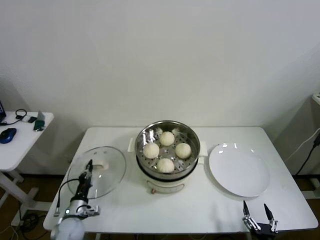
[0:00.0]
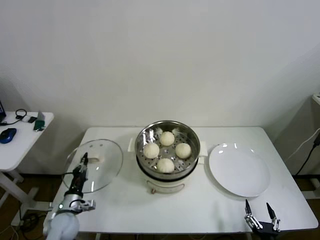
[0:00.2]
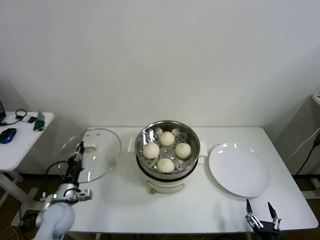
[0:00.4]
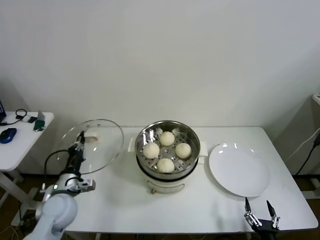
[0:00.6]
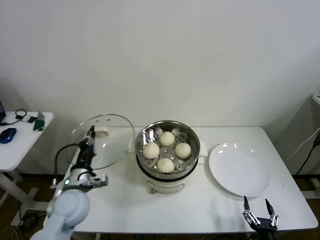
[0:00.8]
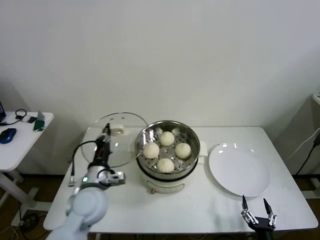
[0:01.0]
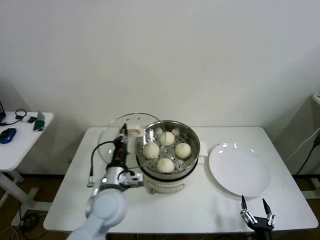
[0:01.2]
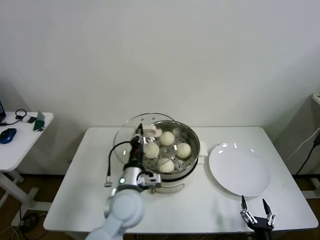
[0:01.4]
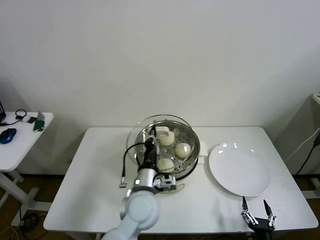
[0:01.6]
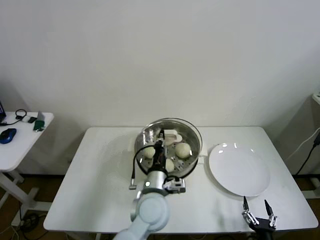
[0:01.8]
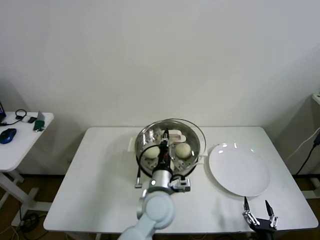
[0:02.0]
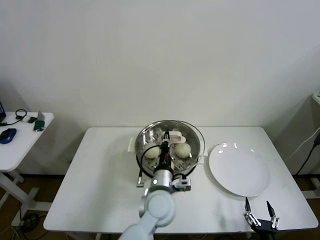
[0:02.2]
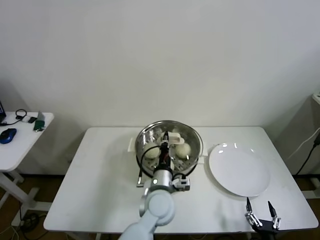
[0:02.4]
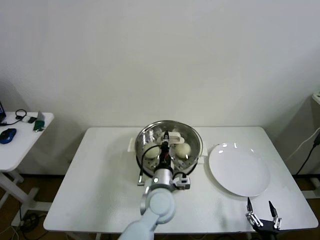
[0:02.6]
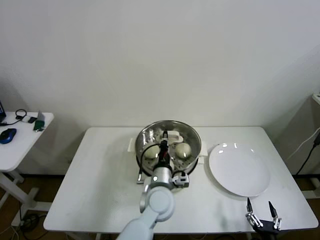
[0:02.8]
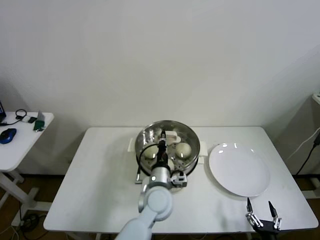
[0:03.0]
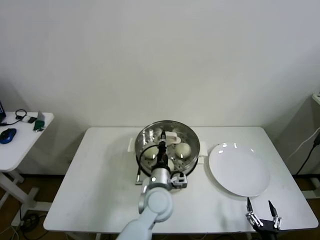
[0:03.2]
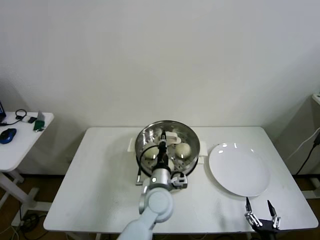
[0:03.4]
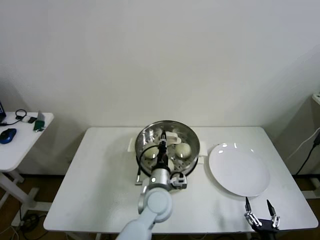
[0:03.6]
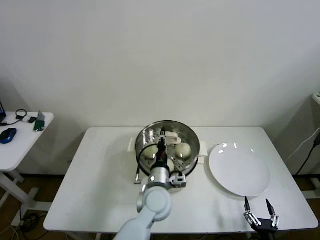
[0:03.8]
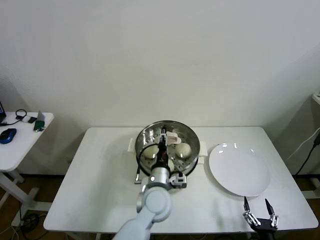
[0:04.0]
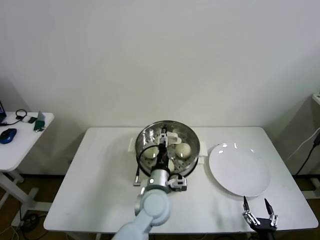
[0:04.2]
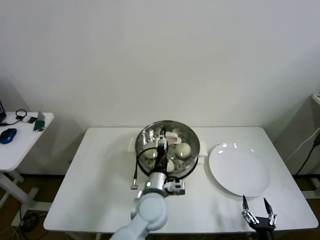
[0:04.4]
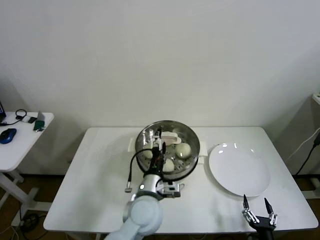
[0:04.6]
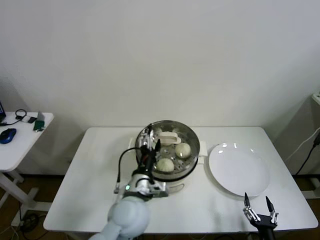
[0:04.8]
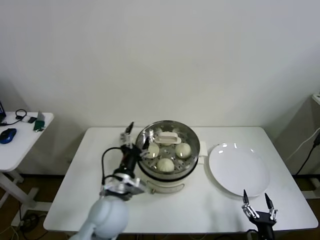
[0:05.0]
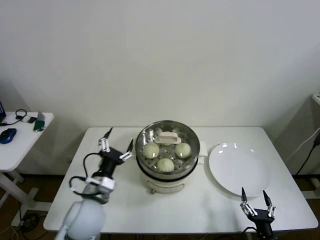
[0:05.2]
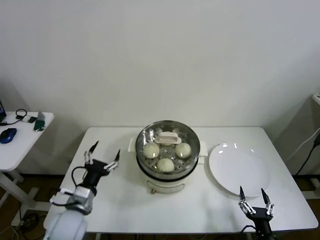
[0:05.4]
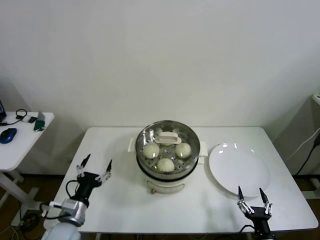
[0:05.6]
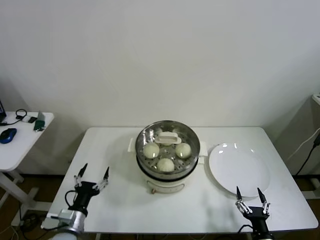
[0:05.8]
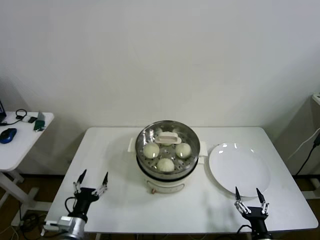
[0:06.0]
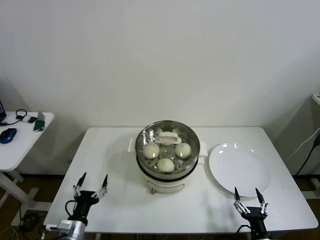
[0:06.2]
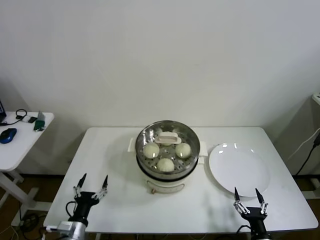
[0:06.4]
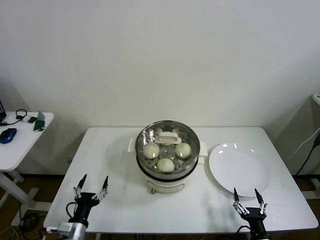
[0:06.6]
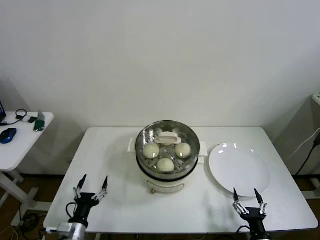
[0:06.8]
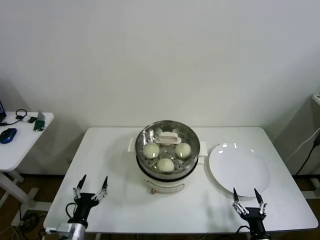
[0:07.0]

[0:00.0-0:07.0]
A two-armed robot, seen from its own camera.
Step, 0:00.0 to 0:03.6: Place the pot lid on the steamer with left gripper.
0:00.0 to 0:01.4: The left gripper is displaced to the right and upward by approximately 30 cm.
0:01.4 to 0:02.8: The left gripper moves to the right, some 10 cm.
0:02.8 to 0:04.2: The left gripper opens up.
0:04.2 to 0:05.6: The left gripper is displaced to the left by about 25 cm.
0:05.6 to 0:07.0: The left gripper moves downward and backward, approximately 10 cm.

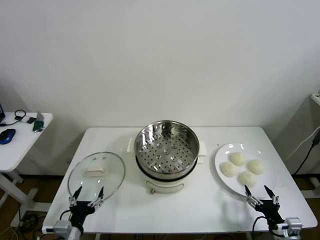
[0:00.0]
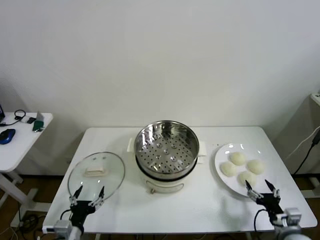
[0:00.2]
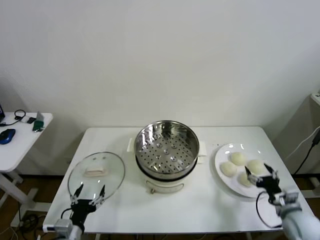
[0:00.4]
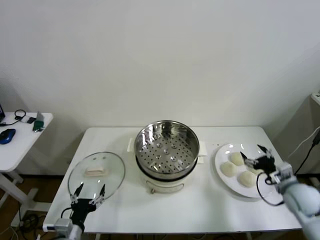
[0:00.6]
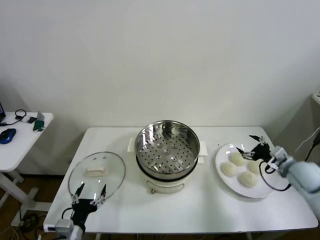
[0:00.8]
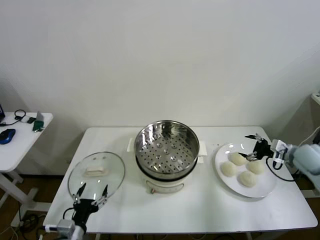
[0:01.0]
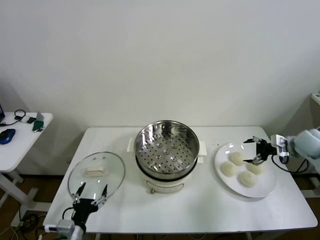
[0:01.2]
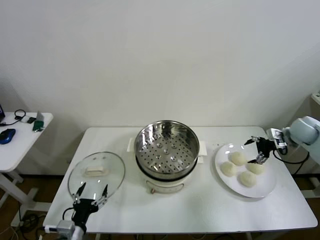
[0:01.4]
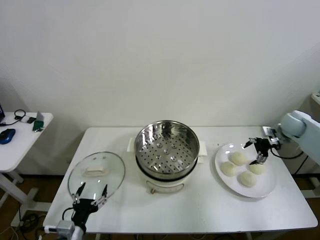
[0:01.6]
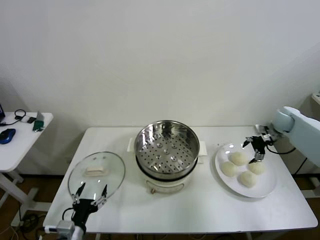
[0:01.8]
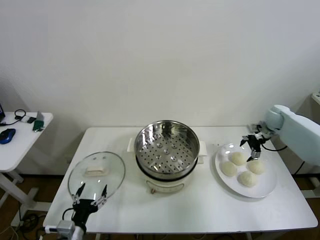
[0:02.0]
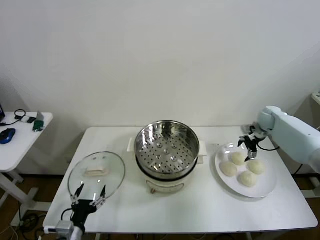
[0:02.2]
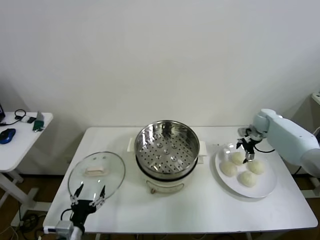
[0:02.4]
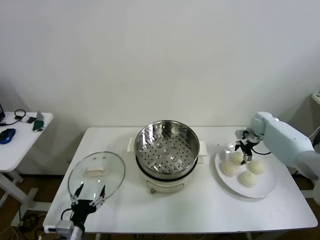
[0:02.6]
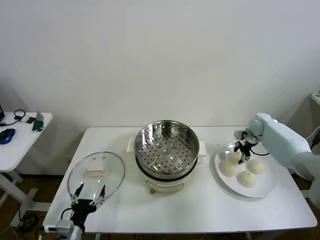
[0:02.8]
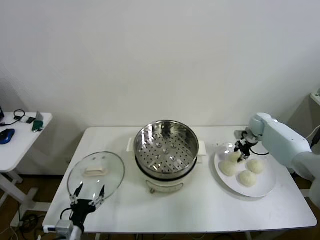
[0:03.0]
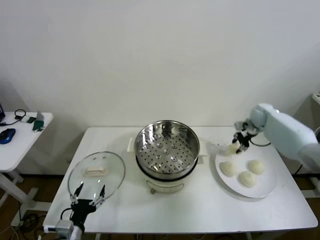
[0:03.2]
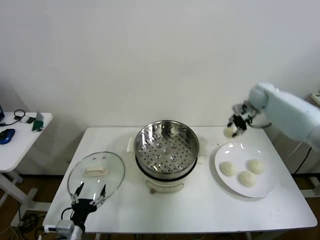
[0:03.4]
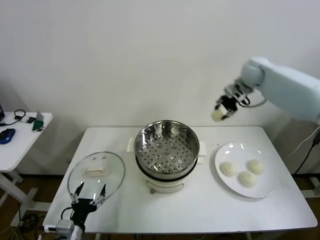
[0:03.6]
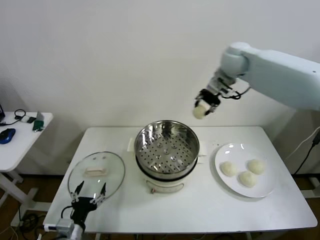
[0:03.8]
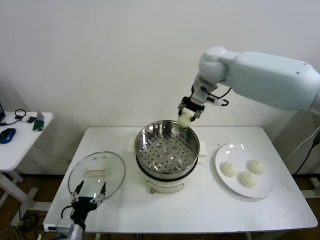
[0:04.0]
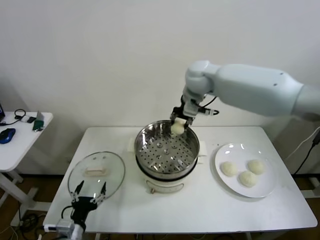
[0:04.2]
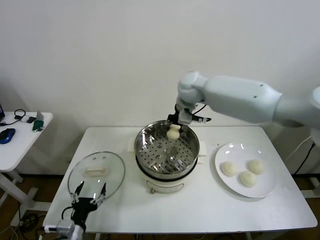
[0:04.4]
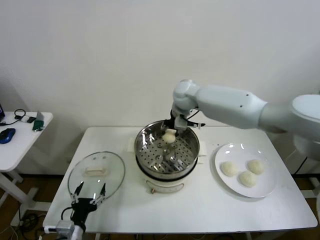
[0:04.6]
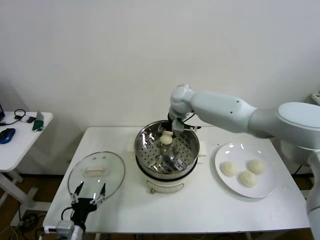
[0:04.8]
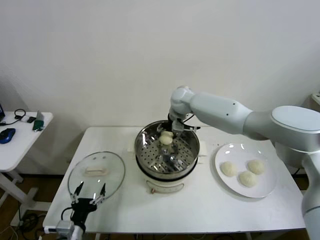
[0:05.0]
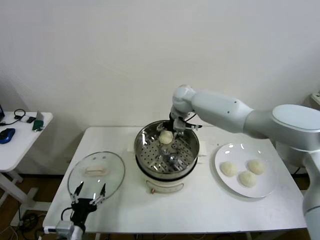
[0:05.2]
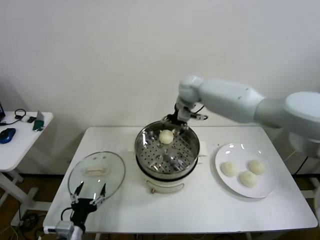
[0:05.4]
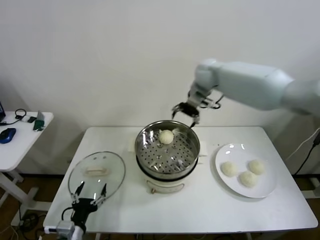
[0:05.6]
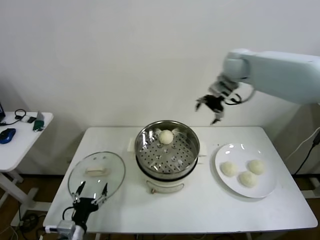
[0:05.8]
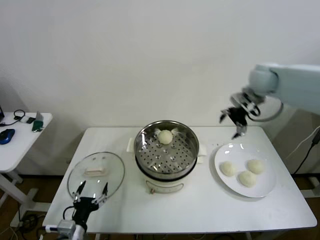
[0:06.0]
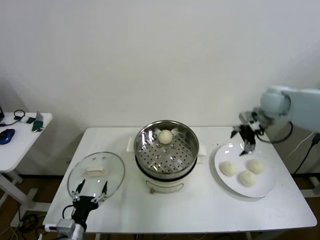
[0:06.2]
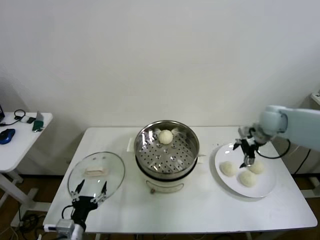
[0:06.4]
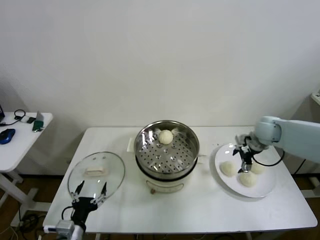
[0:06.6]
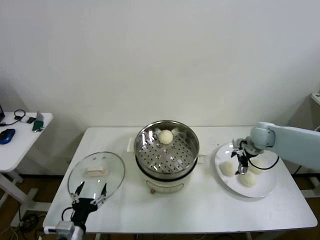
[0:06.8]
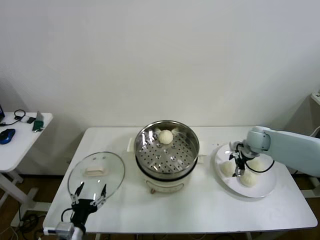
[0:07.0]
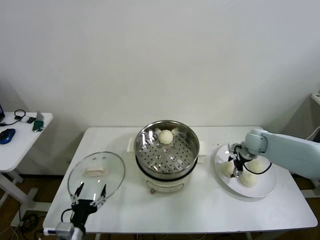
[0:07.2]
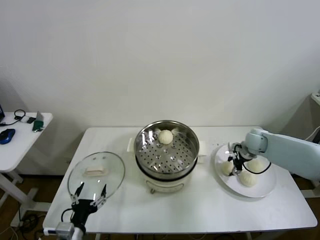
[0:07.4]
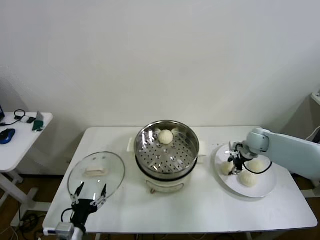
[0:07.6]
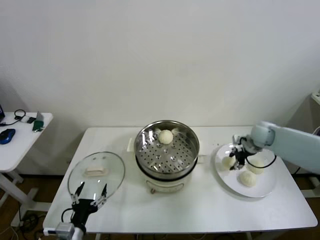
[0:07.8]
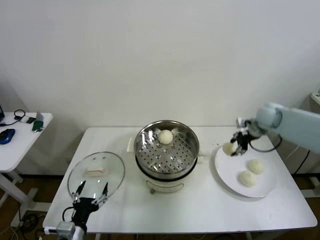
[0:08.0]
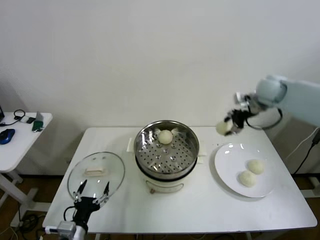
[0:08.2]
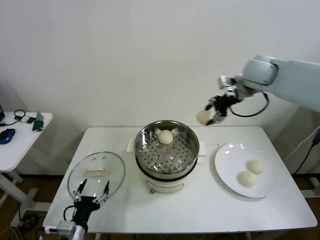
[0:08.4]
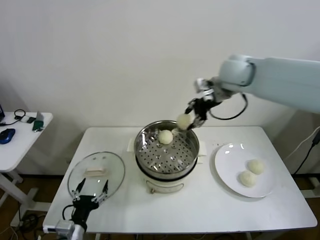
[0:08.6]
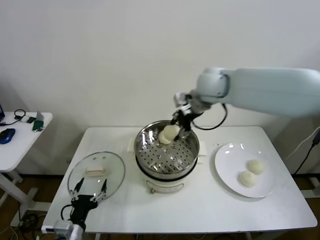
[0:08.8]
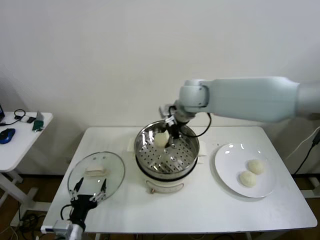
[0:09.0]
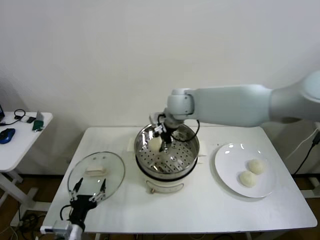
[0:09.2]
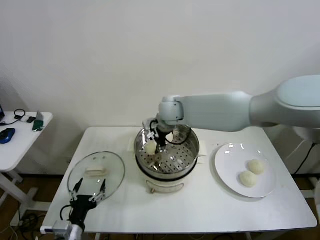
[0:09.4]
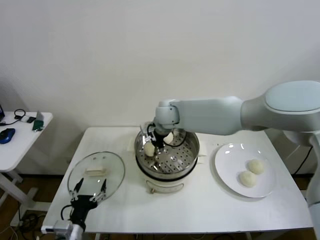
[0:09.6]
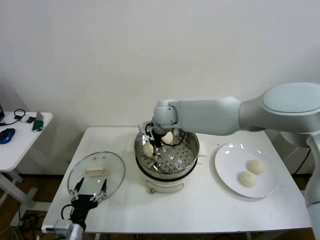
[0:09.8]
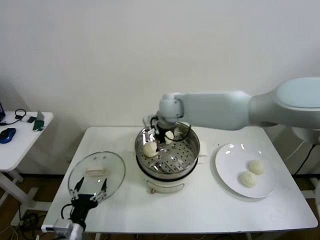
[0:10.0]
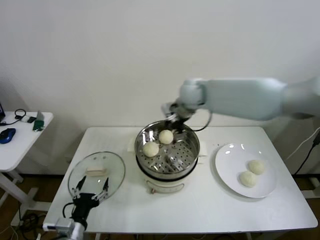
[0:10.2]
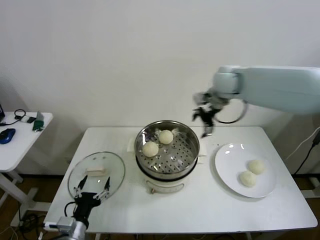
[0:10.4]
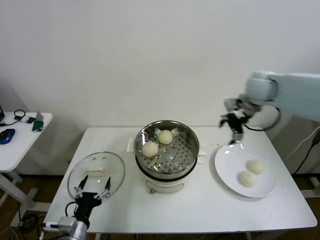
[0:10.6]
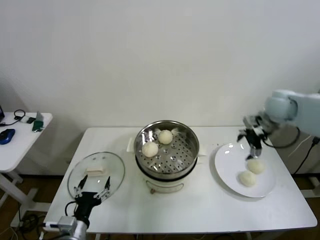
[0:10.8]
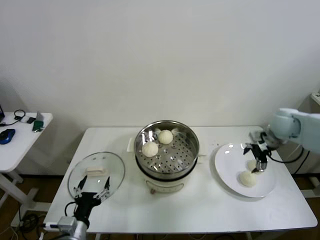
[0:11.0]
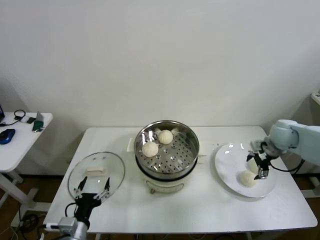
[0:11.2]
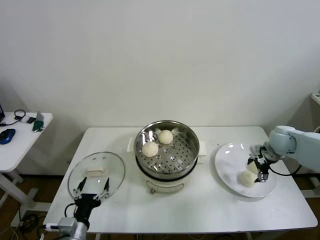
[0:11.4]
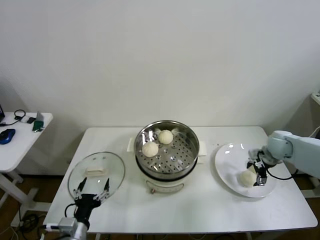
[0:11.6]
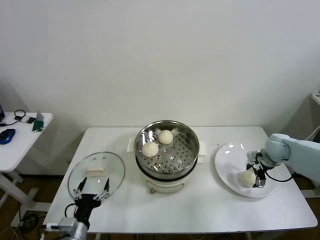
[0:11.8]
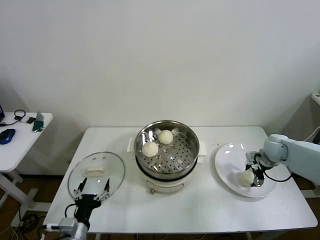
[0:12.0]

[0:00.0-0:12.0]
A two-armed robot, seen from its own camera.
Step, 0:00.0 to 0:02.8: Grasp the baozi in the plate with right gripper.
Step, 0:03.2 to 0:05.0: Place the baozi on the steamer with right gripper.
Step, 0:05.2 to 0:07.4: Grasp the baozi in the plate with right gripper.
Step, 0:07.6 to 0:09.8: Place the baozi on the steamer with right gripper.
0:01.6 to 0:03.0: The right gripper travels to the left and forward by approximately 10 cm, and closes.
0:03.0 to 0:04.4: The right gripper goes roughly 35 cm to the left and upward.
0:04.4 to 0:06.0: The right gripper goes some 25 cm to the right, and opens.
0:06.0 to 0:07.6: The right gripper shifts approximately 20 cm downward, and closes up.
0:07.6 to 0:09.0: The right gripper heads to the left and upward, covering some 35 cm.
0:09.0 to 0:10.4: The right gripper moves to the right, about 15 cm, and opens its fingers.
0:10.4 to 0:12.0: The right gripper goes approximately 30 cm downward and to the right.

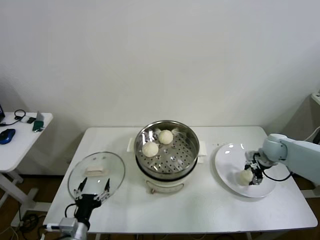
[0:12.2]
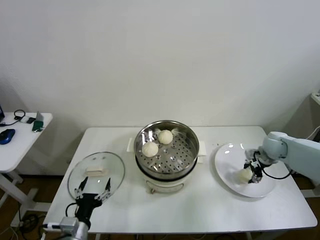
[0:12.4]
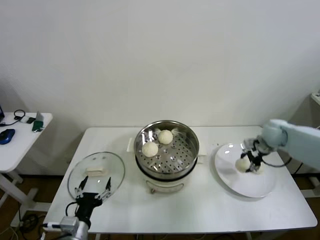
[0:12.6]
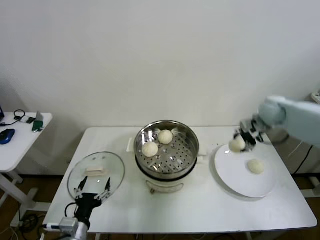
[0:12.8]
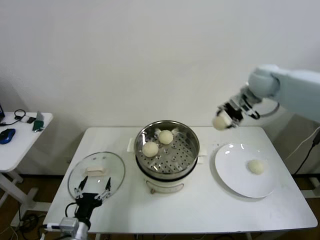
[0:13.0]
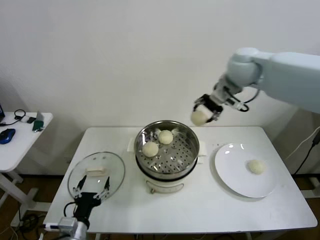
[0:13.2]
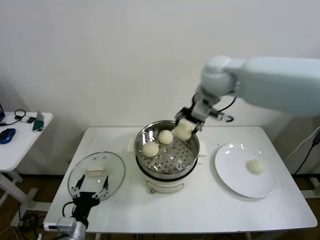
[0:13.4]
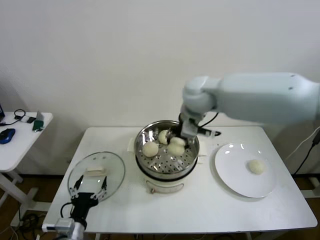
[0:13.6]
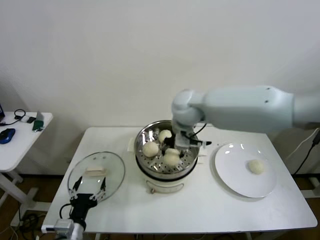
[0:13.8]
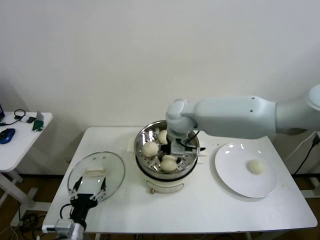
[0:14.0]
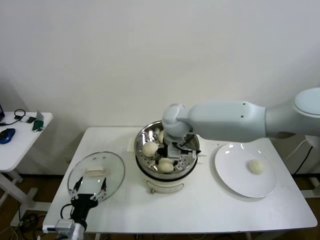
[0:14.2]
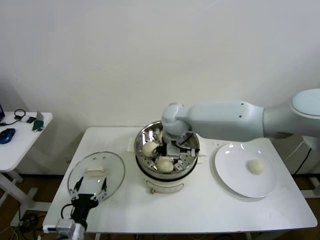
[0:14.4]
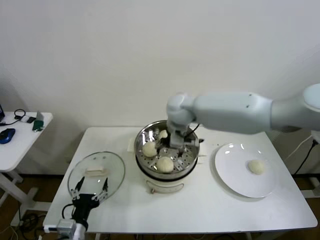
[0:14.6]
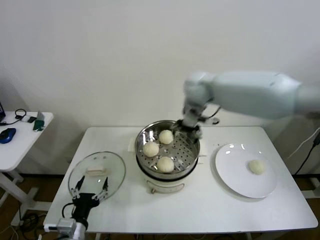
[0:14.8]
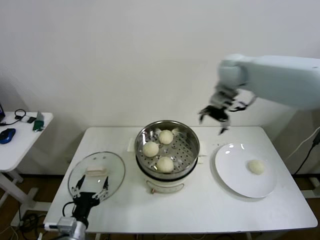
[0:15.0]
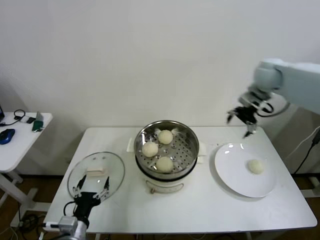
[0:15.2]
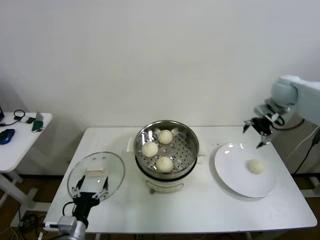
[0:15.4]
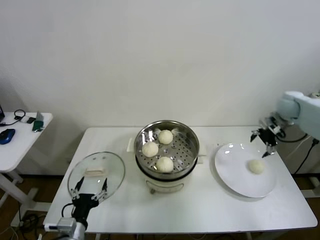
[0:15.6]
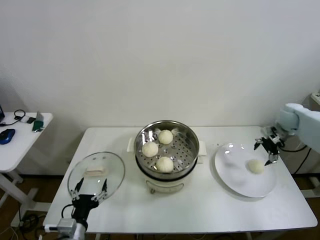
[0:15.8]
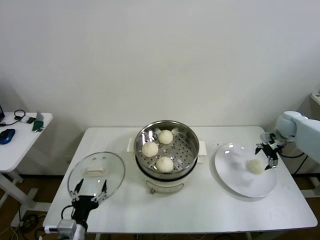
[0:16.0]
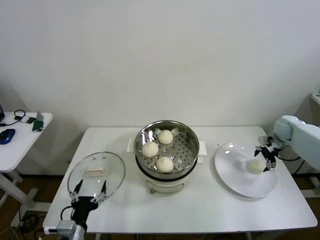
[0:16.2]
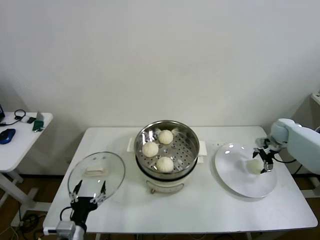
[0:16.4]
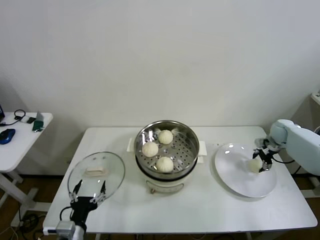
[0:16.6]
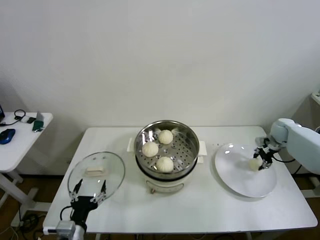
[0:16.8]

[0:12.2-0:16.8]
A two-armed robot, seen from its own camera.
Step, 0:12.2 to 0:14.2: Place the baozi on the steamer with right gripper.
Step, 0:14.4 to 0:16.6: Grasp the baozi in the plate with right gripper.
0:12.2 to 0:13.8: The right gripper heads to the left and upward, covering about 40 cm.
0:13.8 to 0:15.2: The right gripper travels to the right by approximately 30 cm, and opens up.
0:15.2 to 0:16.8: The right gripper is displaced downward and to the right by some 25 cm, and closes.
